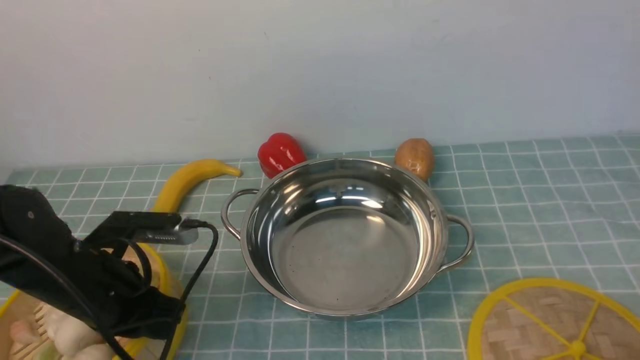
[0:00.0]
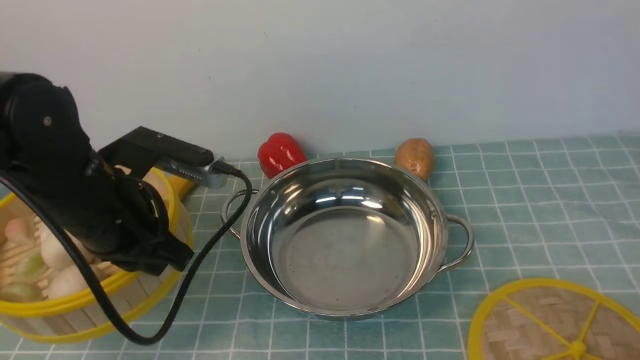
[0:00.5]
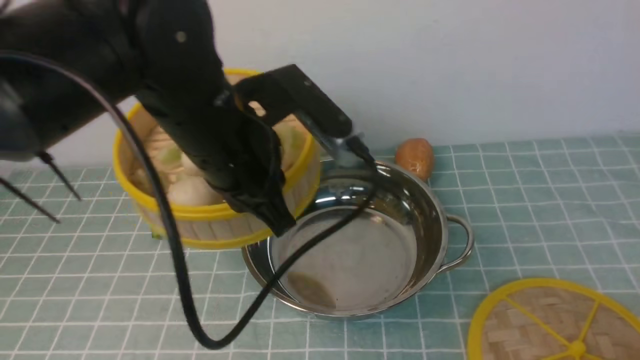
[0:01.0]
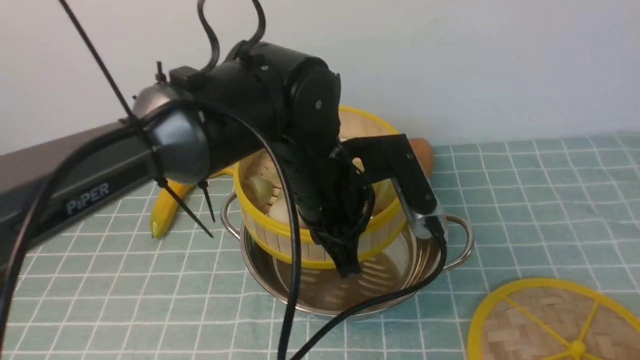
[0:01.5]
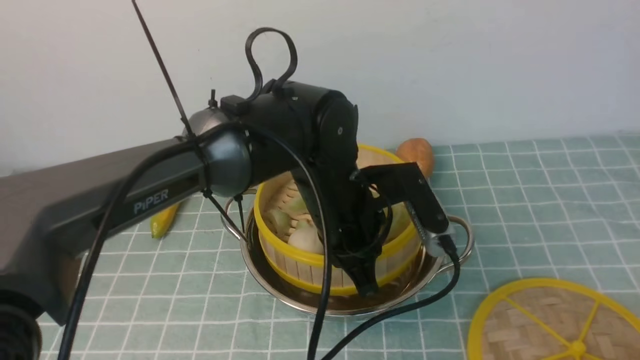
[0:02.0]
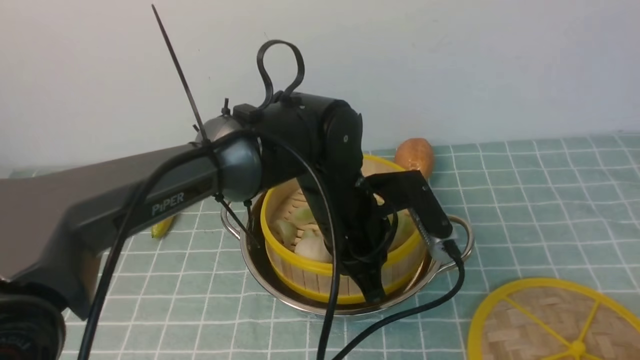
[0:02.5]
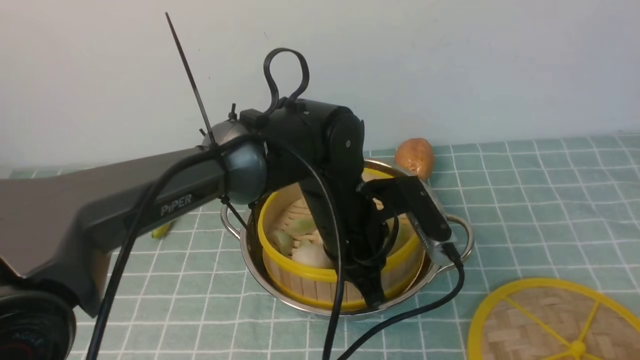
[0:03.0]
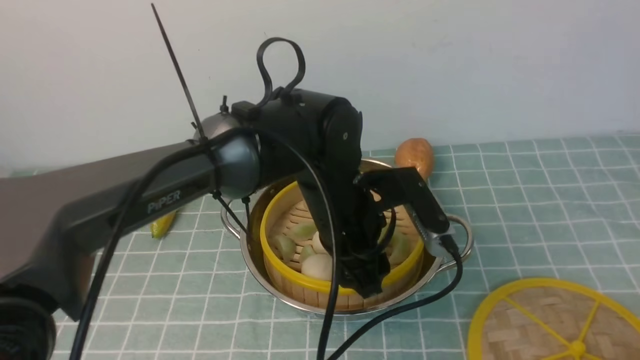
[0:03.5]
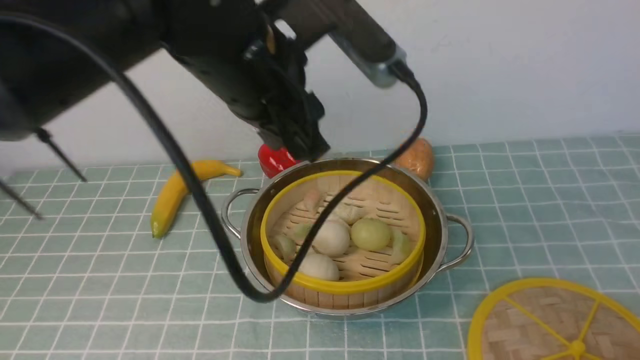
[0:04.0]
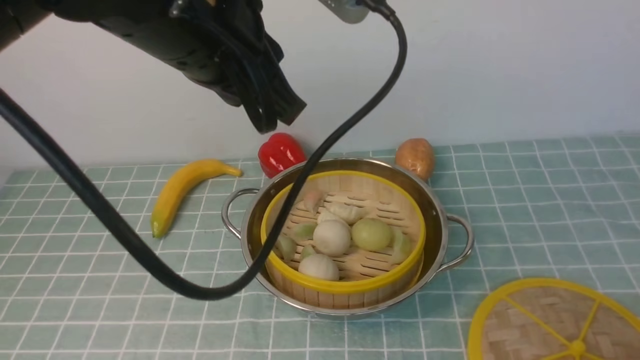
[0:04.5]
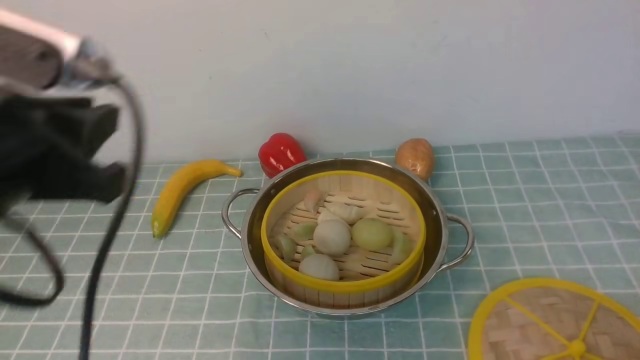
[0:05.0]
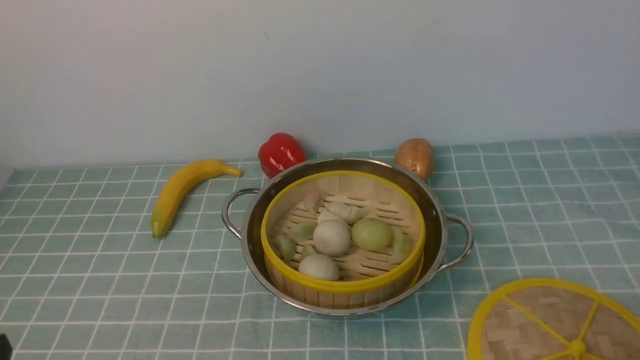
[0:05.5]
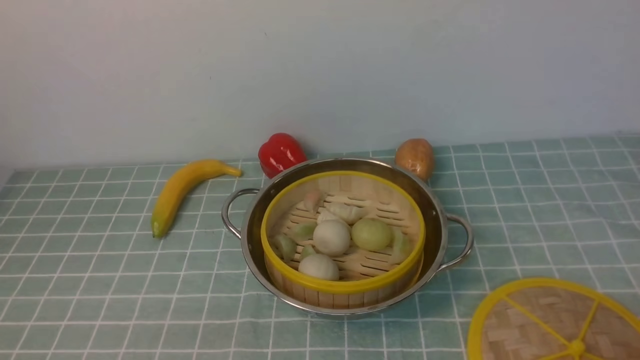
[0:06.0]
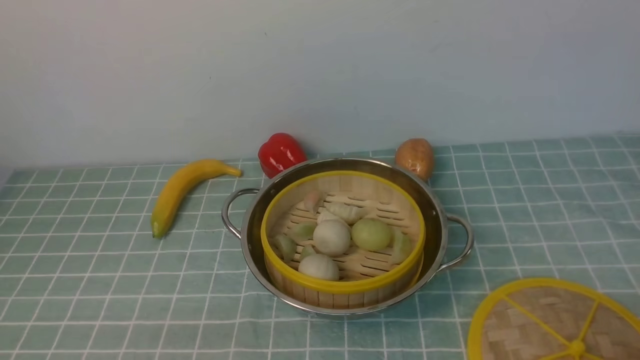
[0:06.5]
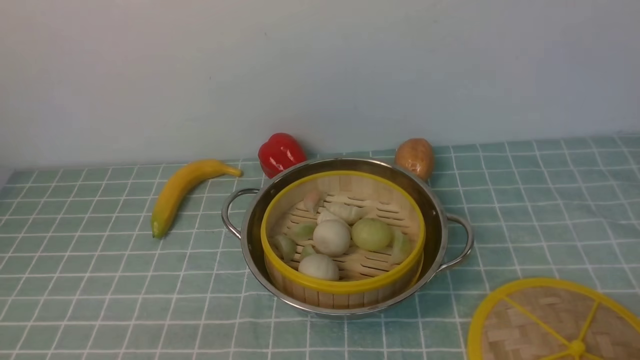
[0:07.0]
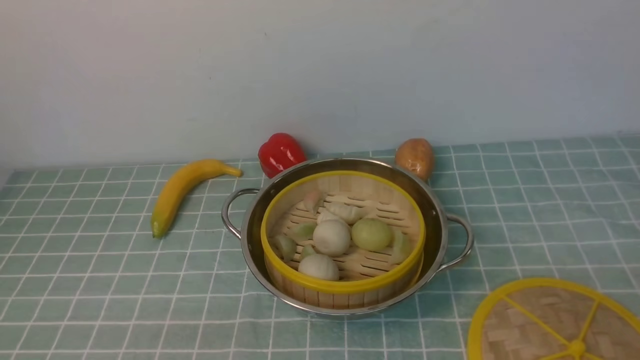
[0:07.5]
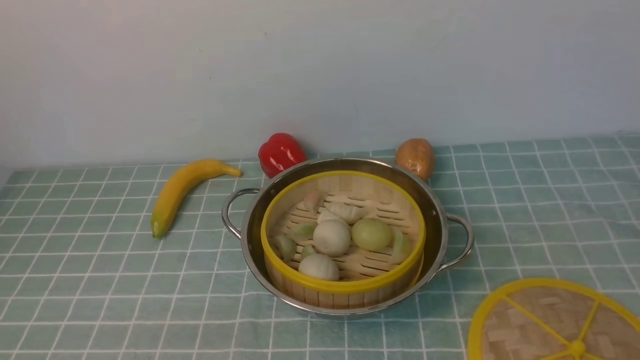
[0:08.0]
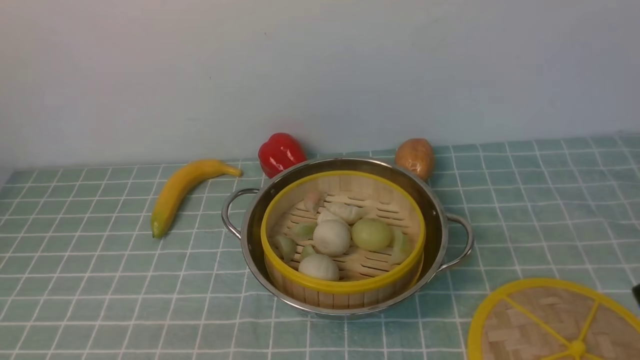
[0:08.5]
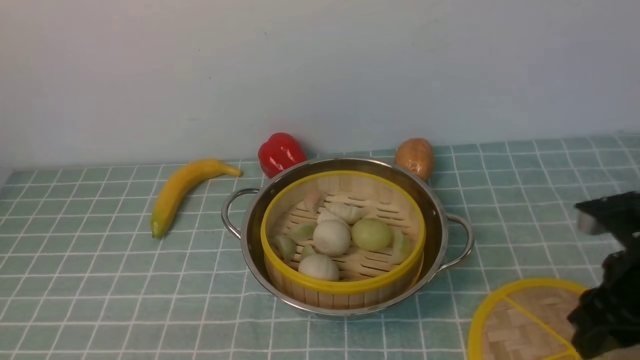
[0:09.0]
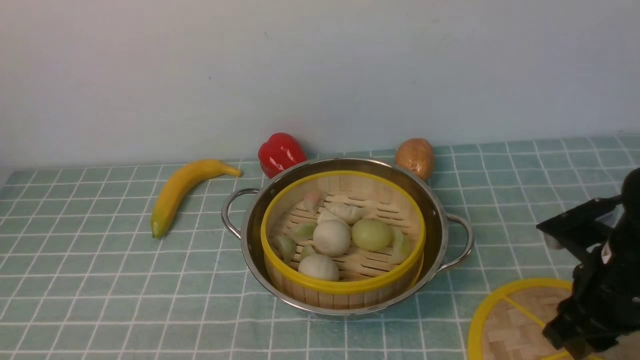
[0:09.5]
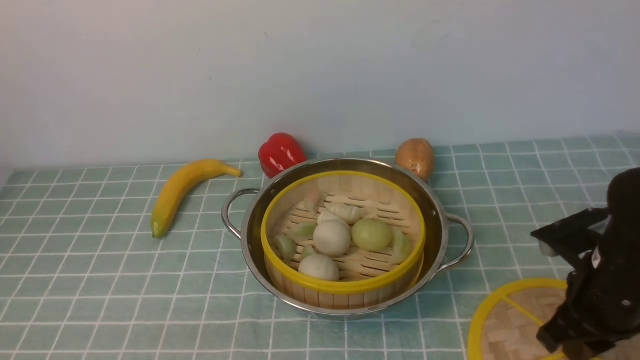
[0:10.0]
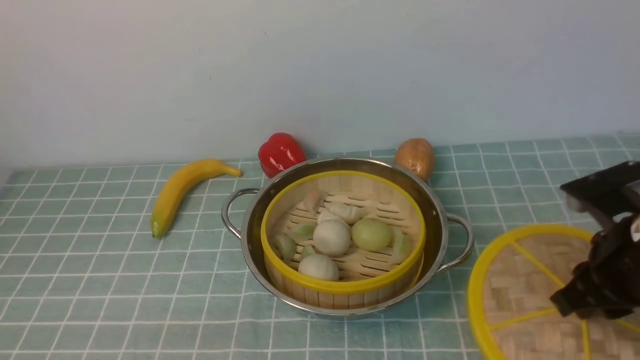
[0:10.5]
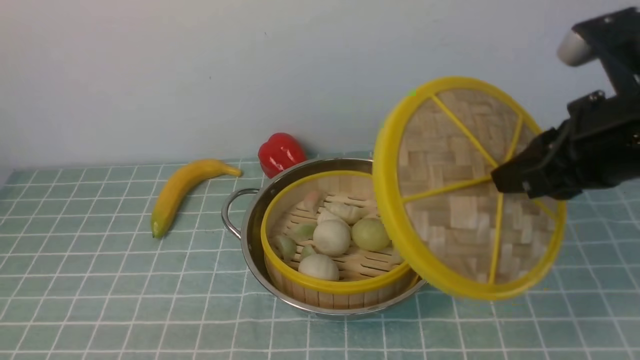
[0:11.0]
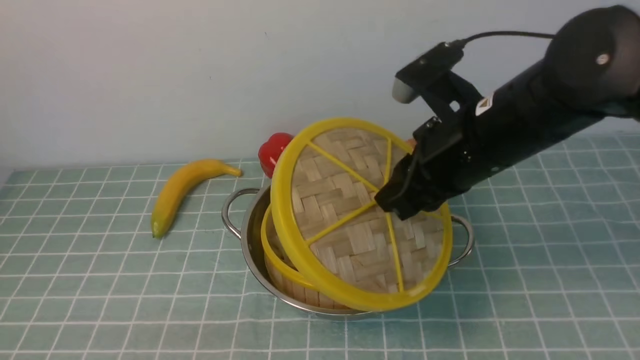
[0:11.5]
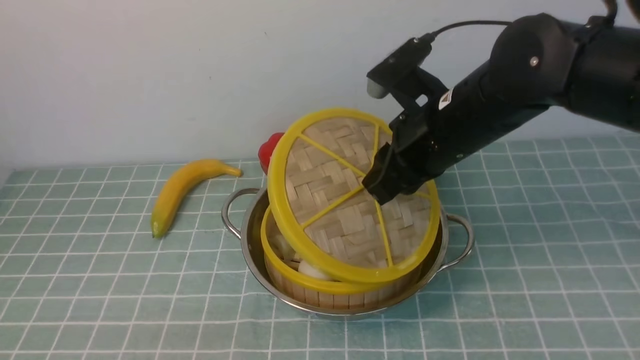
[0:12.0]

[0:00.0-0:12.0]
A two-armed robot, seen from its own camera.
Task of the whole recording: place the steamer in the pot on the blue tablecloth, and put the lid on the steamer.
Step, 0:01.0 to 0:03.5: use the left arm to put the steamer into the iron steamer pot in the middle.
Step, 0:04.0 to 0:10.5: use the right arm to lift the lid of the steamer.
0:00.0 to 0:02.0: The left gripper is displaced to the right by some 25 cm.
0:02.0 to 0:04.0: The left gripper travels upward by some 15 cm, and opens.
0:04.0 to 0:06.0: The left gripper heads backward, to the left and downward, covering about 35 cm.
0:08.0 to 0:10.0: The right gripper is displaced forward and downward by approximately 25 cm.
0:10.0 to 0:12.0: The right gripper moves to the left, upward and forward, roughly 20 cm.

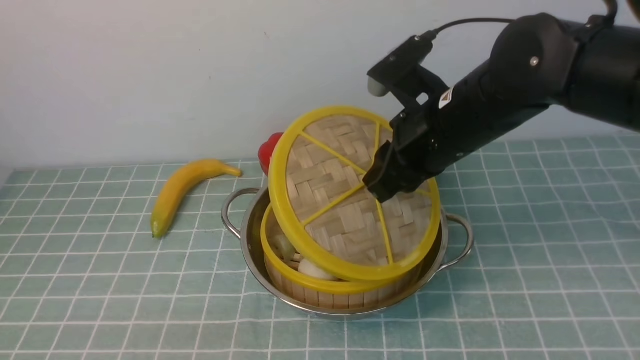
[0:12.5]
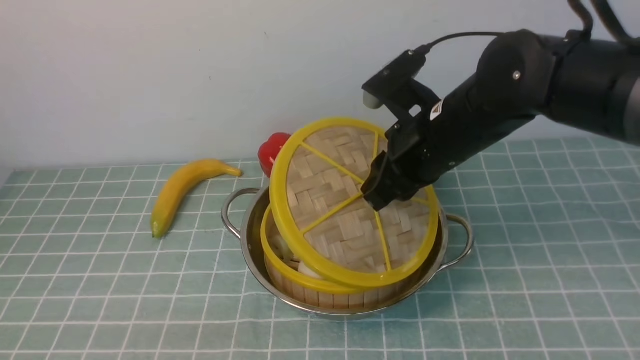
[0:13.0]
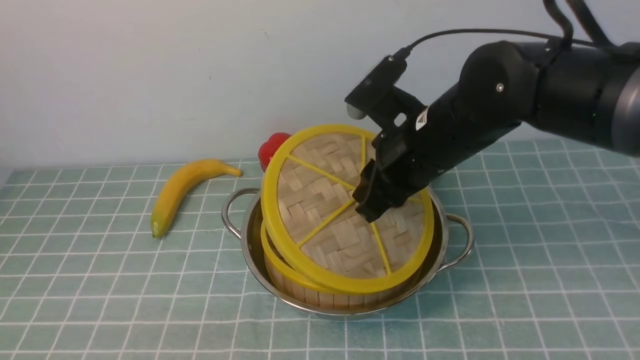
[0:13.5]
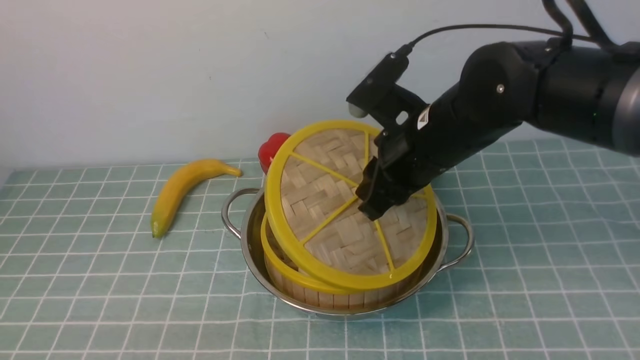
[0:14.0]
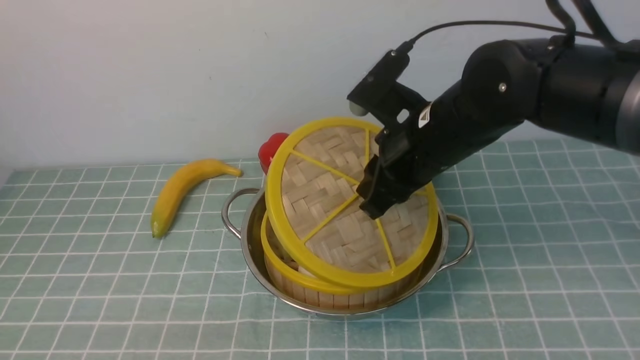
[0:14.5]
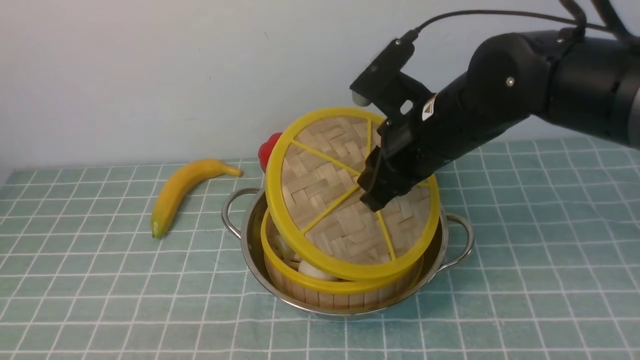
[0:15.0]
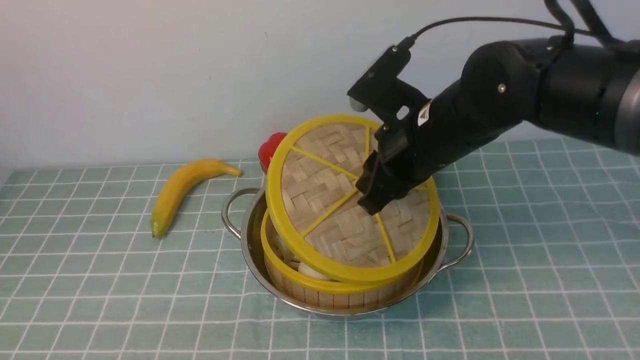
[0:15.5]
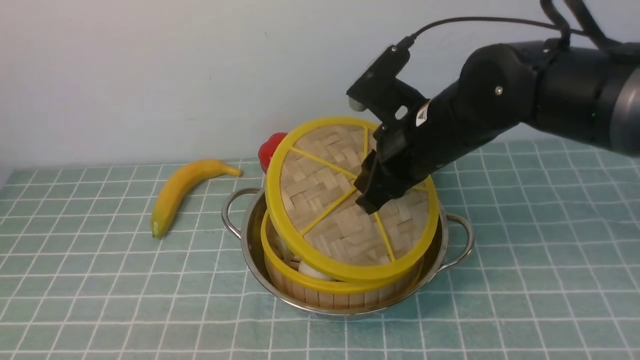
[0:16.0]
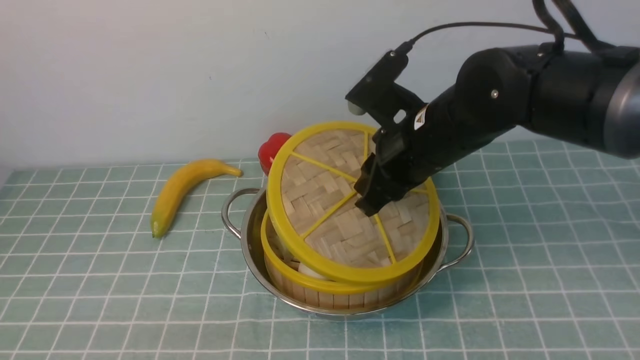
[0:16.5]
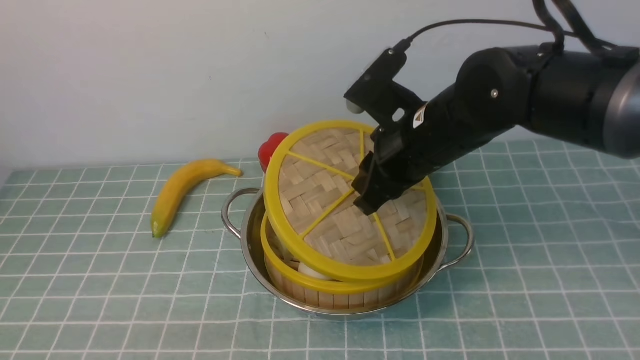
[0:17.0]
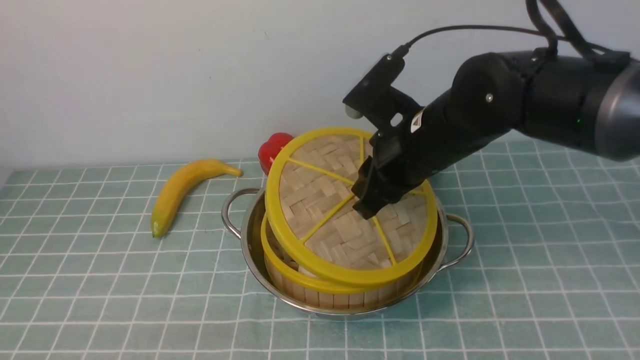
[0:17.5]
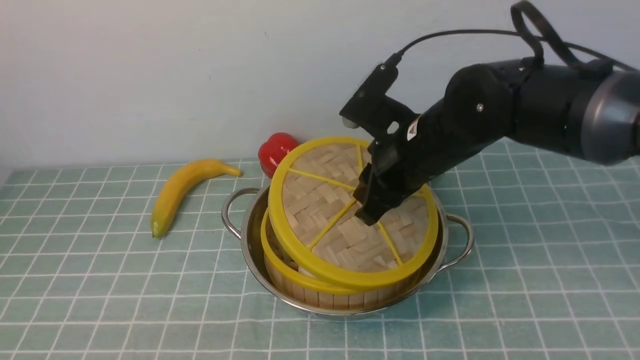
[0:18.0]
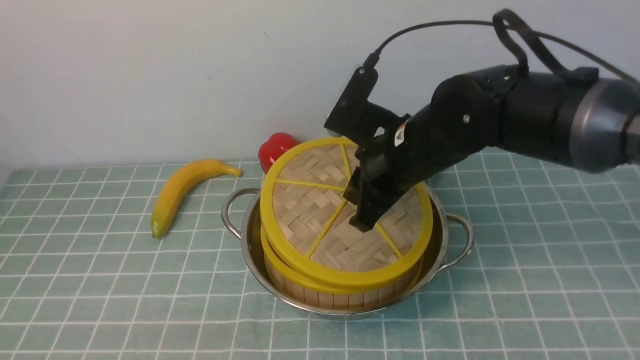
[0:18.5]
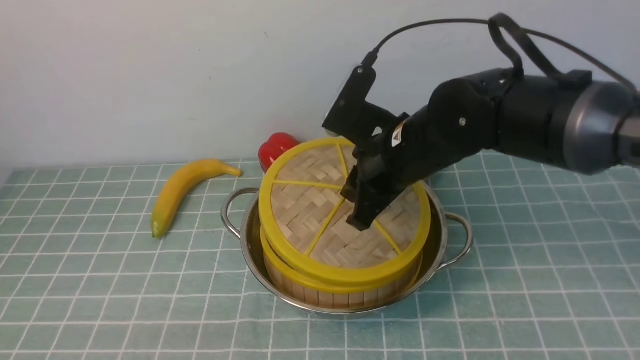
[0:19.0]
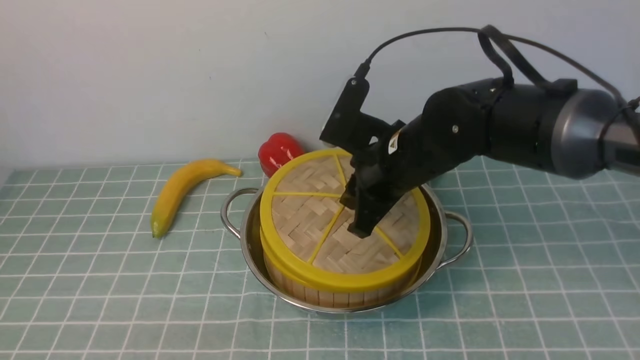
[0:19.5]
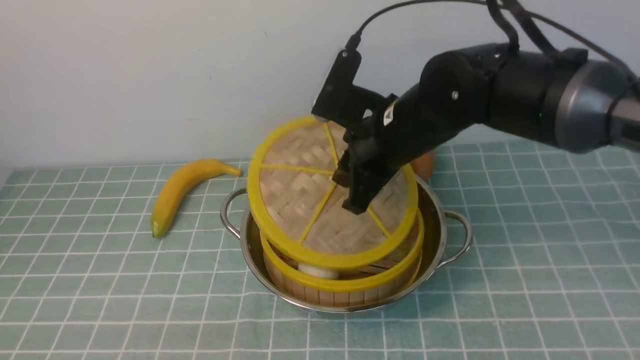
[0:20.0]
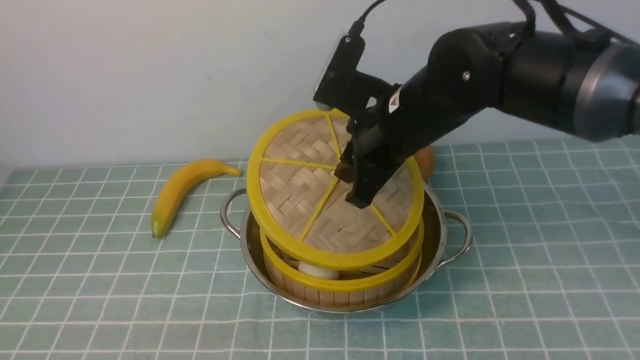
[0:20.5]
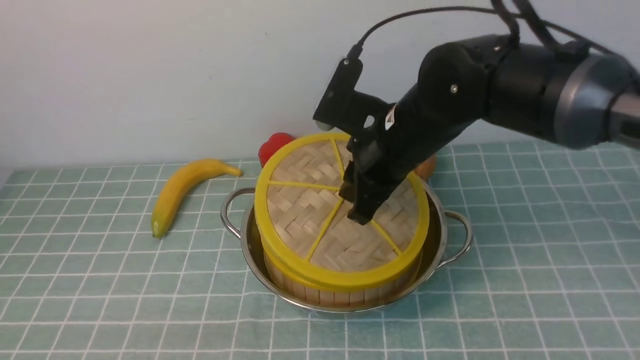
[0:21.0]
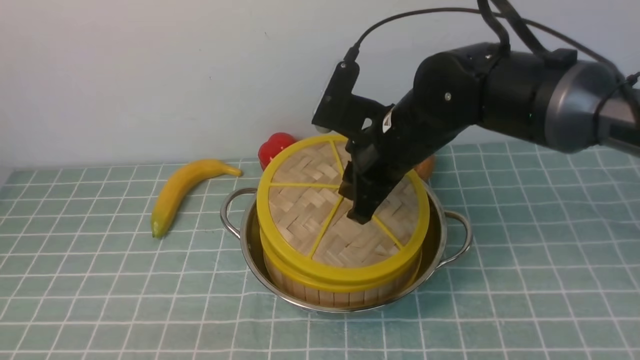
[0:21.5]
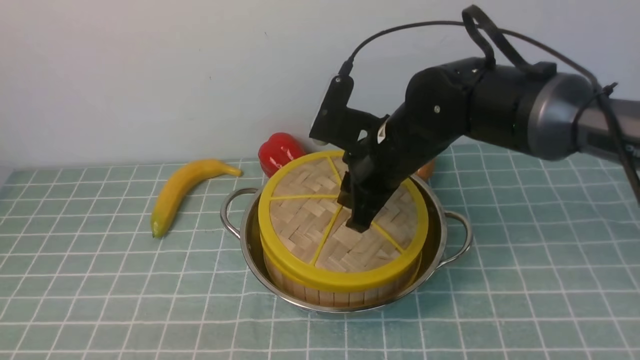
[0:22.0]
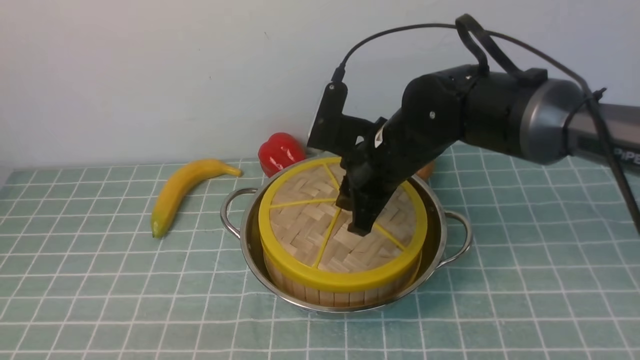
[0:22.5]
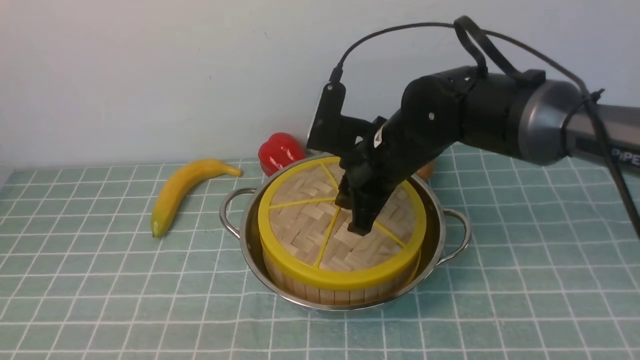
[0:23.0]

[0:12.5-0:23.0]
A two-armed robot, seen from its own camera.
Task of the whole recording: place the steamer in the pot on the blue tablecloth, and put the lid on the steamer.
0:12.5 to 0:14.5: There are only small adjustments of the grippers.
0:14.5 to 0:16.5: Both grippers stay put.
0:16.5 to 0:21.0: The grippers stay close to where they were, moving slightly.
0:21.0 to 0:23.0: The grippers make only small movements.
